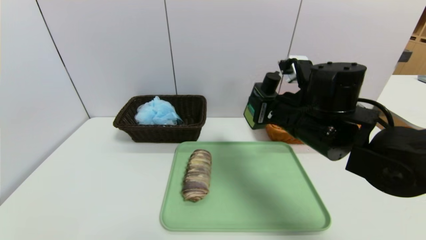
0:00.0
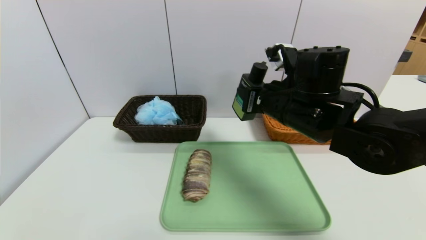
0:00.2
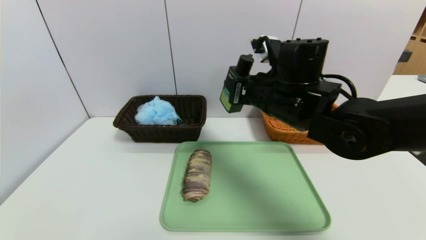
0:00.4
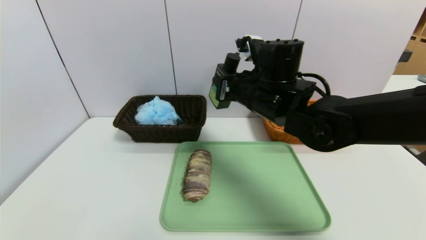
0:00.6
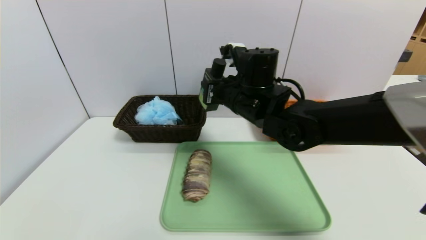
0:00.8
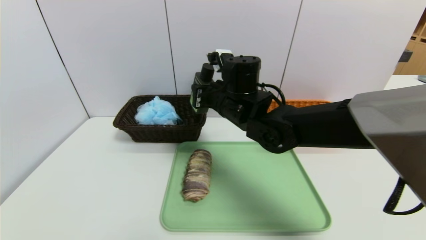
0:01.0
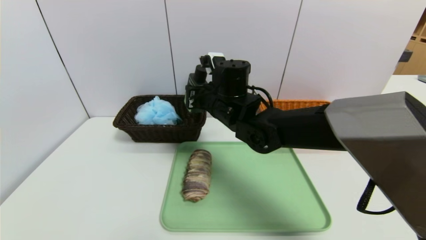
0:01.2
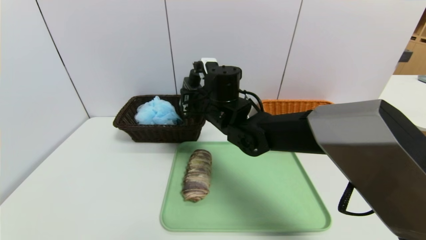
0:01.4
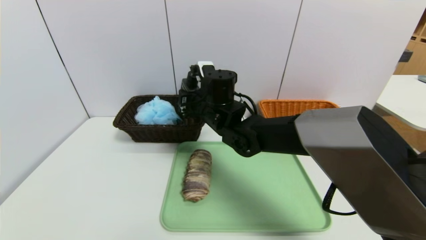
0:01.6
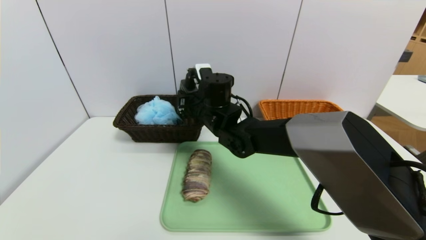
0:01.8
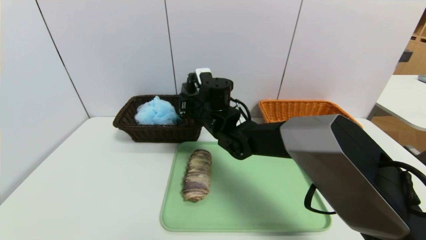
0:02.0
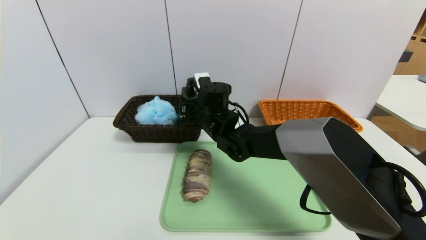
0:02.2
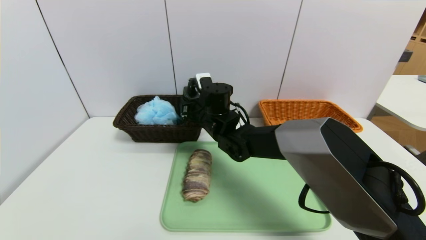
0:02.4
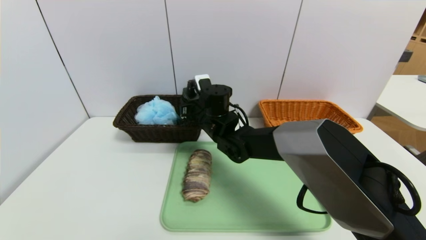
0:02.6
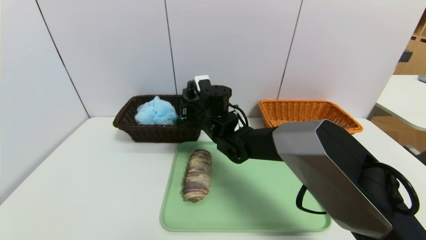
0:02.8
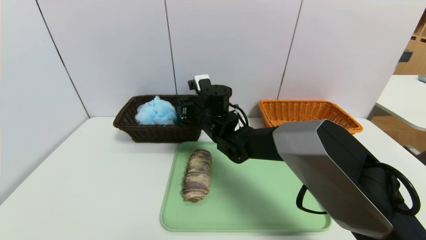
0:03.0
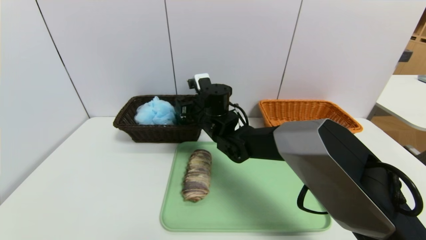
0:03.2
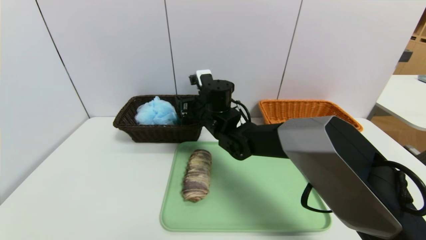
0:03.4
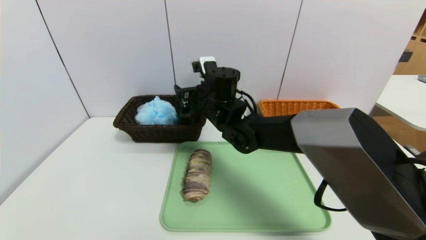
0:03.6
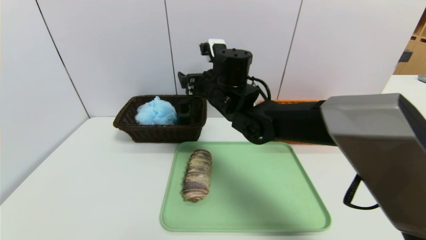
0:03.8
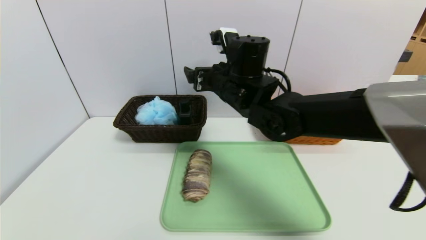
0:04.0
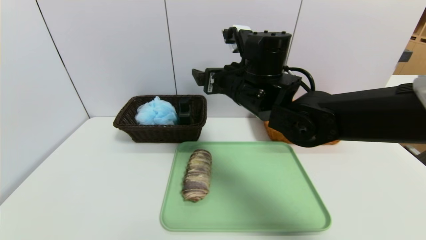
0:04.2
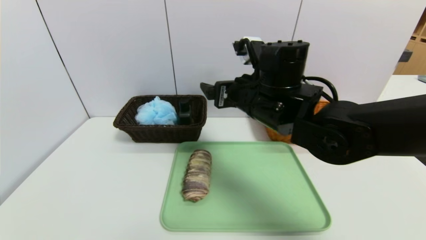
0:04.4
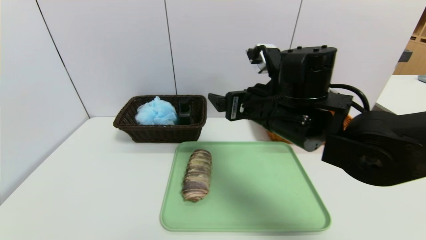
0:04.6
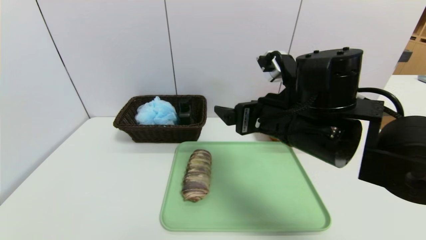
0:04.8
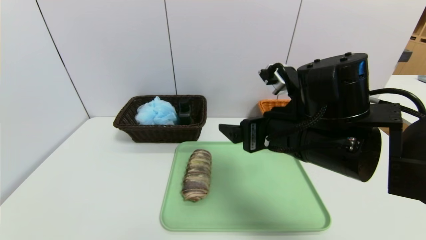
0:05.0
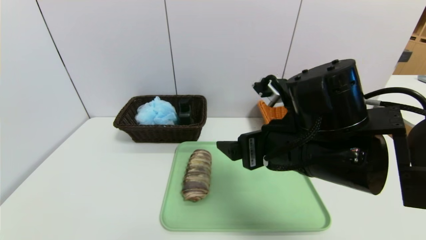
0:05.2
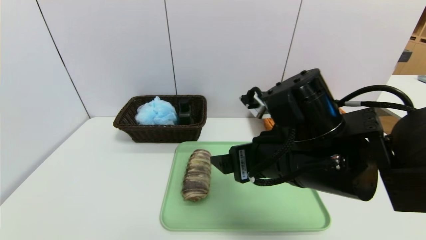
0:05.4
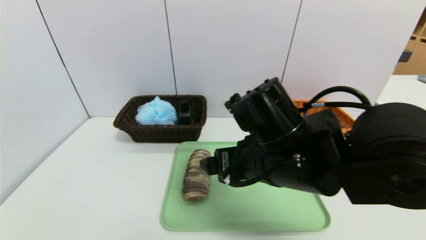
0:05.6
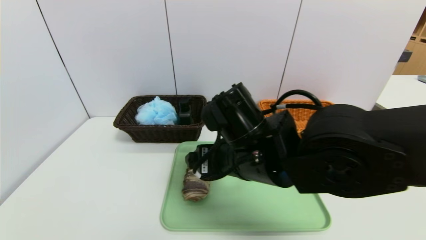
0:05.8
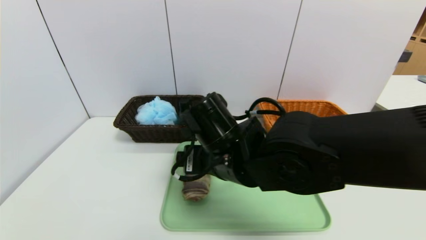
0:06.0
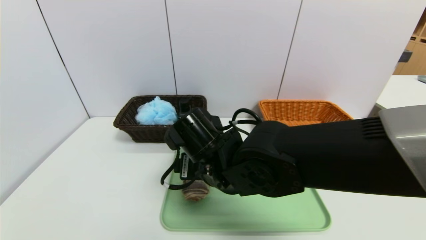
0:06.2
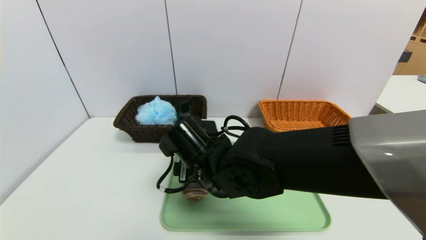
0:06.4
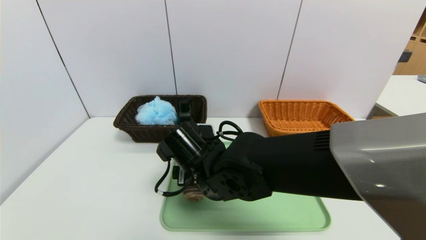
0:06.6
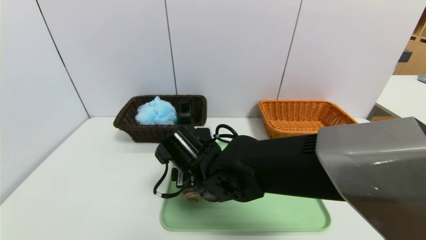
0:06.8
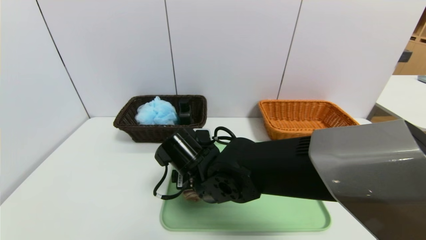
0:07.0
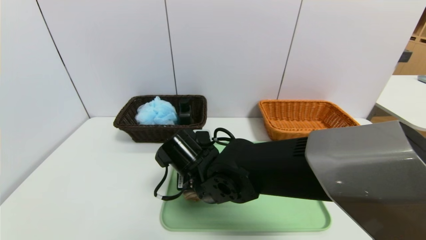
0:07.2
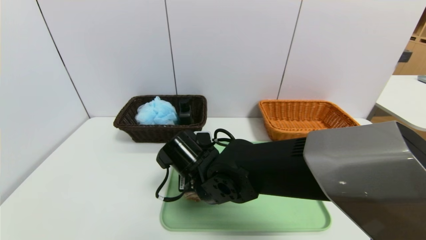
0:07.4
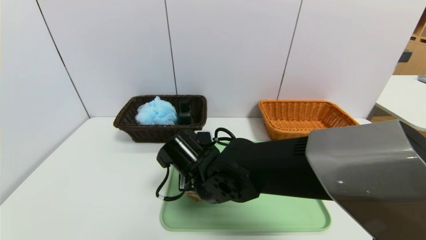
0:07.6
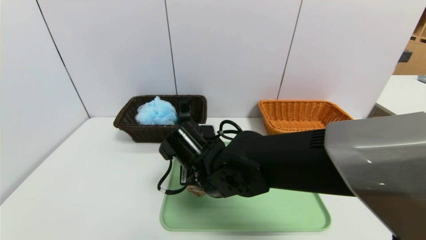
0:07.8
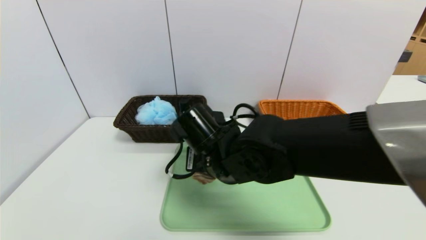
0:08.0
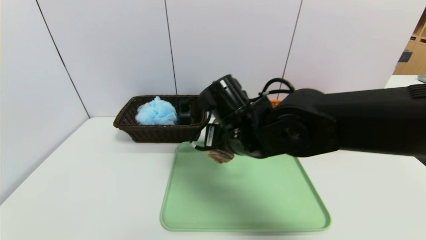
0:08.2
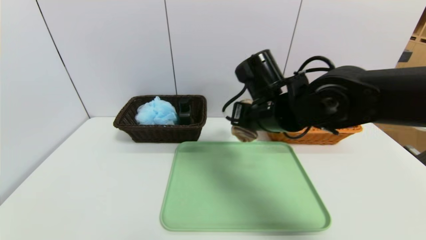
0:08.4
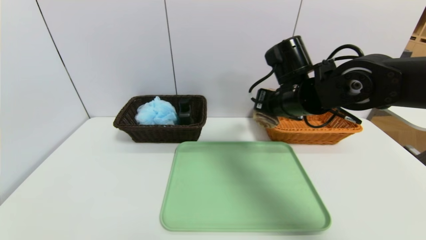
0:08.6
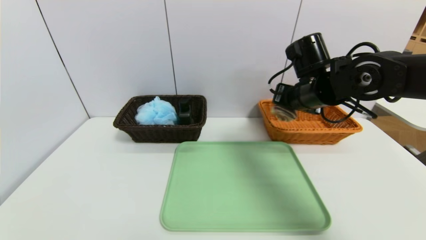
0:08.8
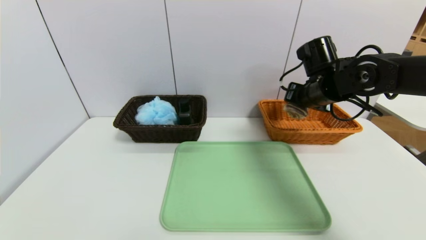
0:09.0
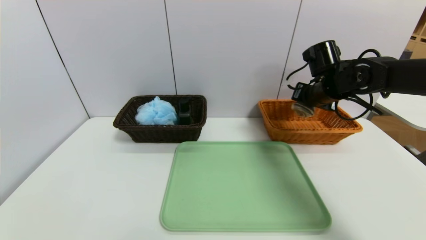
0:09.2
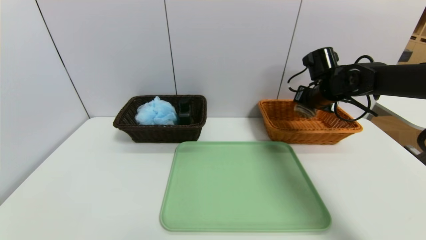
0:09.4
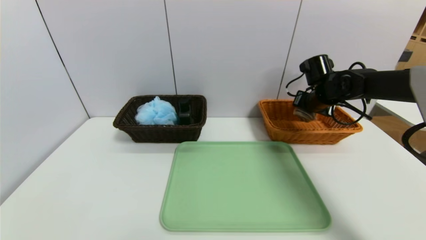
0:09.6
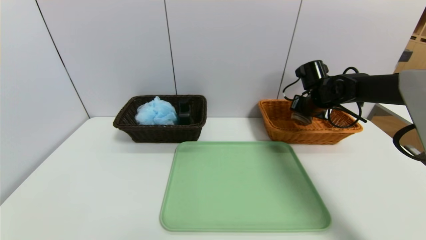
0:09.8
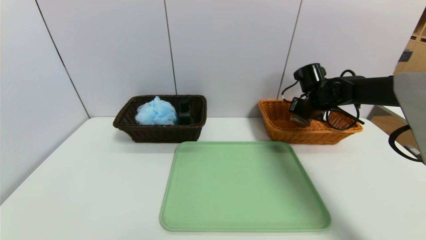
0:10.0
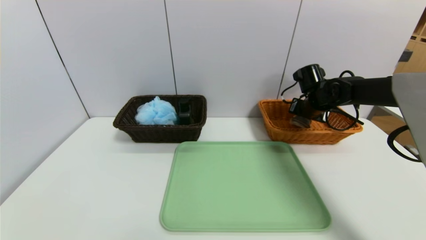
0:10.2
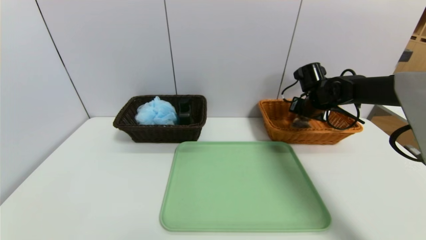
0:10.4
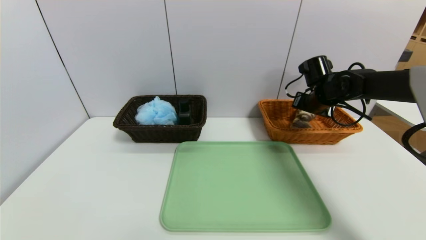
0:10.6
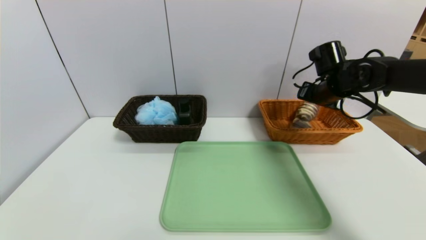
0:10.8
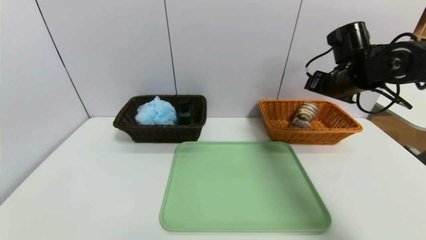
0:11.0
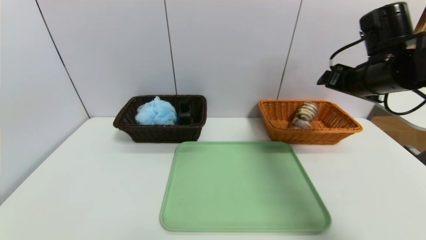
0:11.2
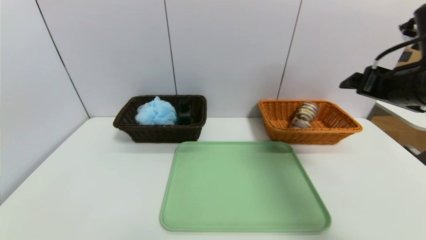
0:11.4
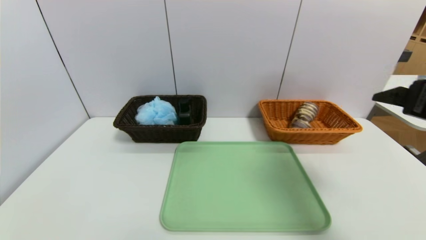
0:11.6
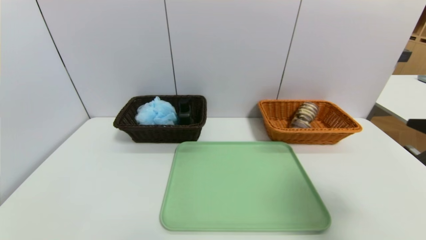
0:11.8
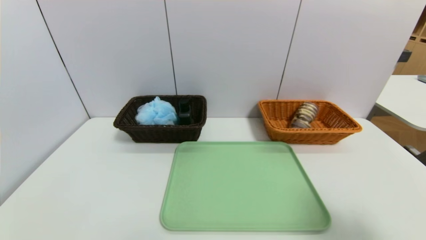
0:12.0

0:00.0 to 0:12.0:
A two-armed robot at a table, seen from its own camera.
Task of the whole recording: place the food in the right basket with the right gripper, and place the non food items in the left basket with the left gripper.
Step, 0:03.6 to 0:10.6: Grasp the long bread and put it in the right basket.
0:00.0 to 0:01.6: The right gripper is displaced to the left and forward by roughly 20 cm.
0:01.6 to 0:03.0: The grippers stay close to where they were, moving slightly.
0:03.0 to 0:04.4: The right gripper moves backward, to the right and upward, some 15 cm, and opens its fingers.
0:04.4 to 0:06.0: The right gripper shifts approximately 10 cm to the left, backward and downward.
0:06.0 to 0:07.6: The right gripper heads downward, covering approximately 5 cm, and closes.
0:07.6 to 0:09.0: The right gripper shifts about 30 cm to the right, forward and upward.
0:09.0 to 0:10.4: The right gripper heads forward and downward, covering roughly 10 cm, and opens.
0:10.4 to 0:12.0: The right gripper moves backward, roughly 40 cm, and opens up.
